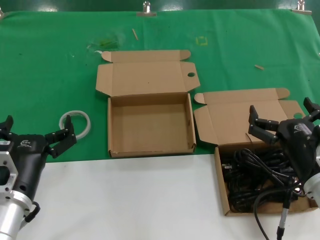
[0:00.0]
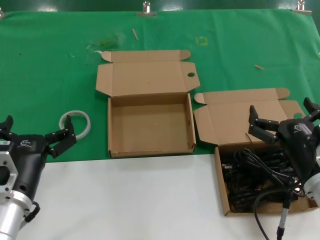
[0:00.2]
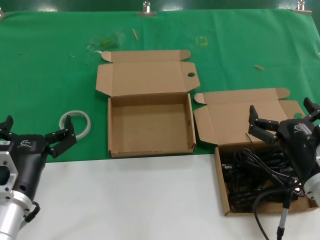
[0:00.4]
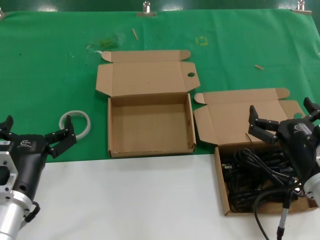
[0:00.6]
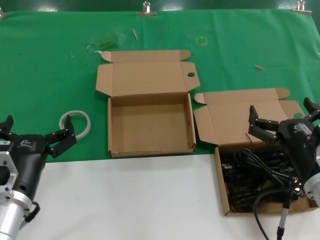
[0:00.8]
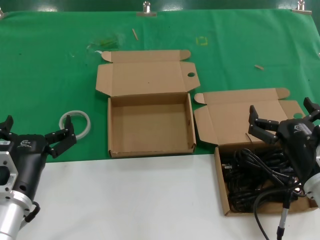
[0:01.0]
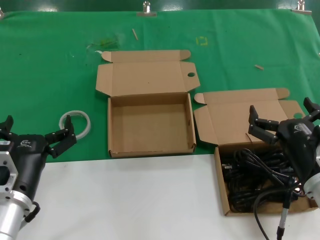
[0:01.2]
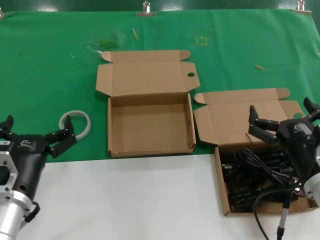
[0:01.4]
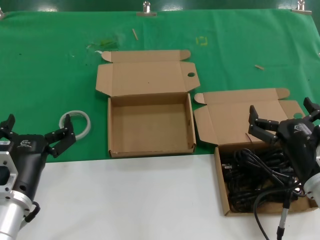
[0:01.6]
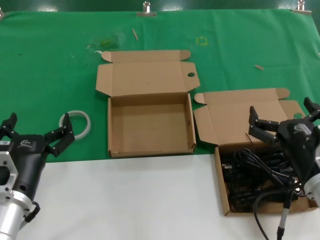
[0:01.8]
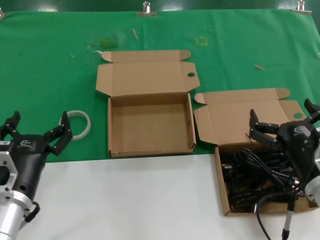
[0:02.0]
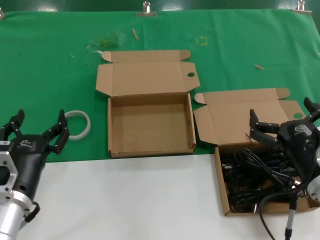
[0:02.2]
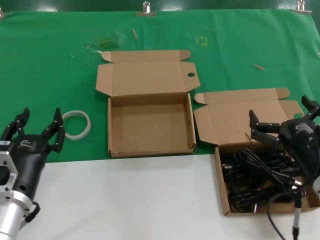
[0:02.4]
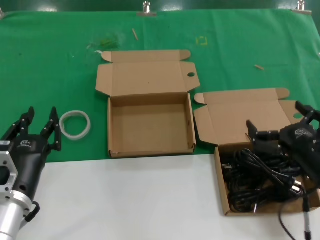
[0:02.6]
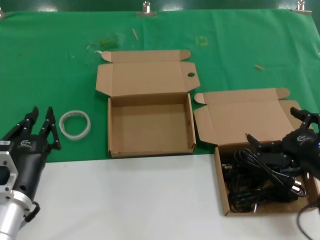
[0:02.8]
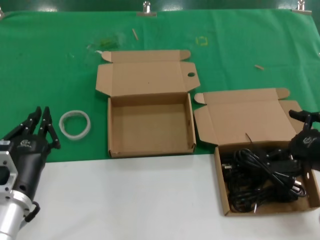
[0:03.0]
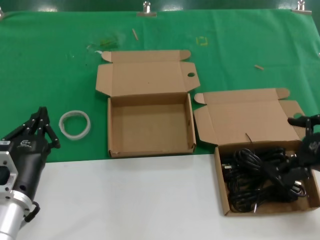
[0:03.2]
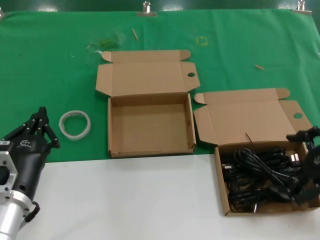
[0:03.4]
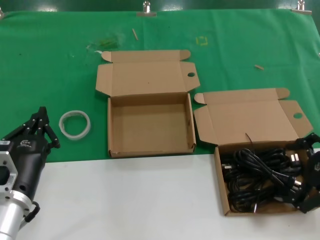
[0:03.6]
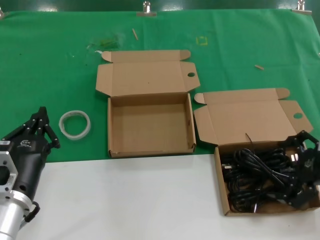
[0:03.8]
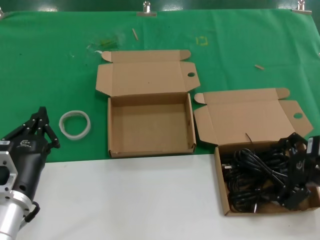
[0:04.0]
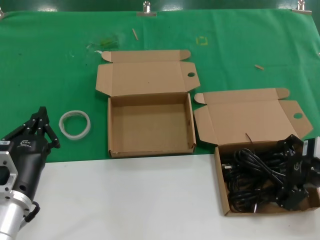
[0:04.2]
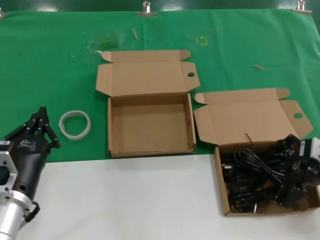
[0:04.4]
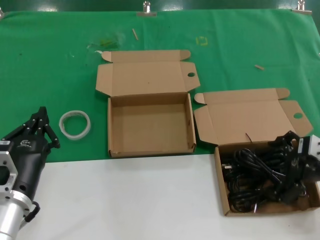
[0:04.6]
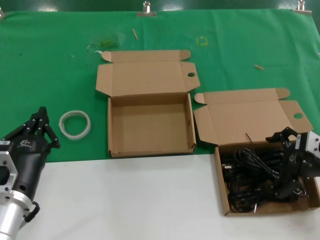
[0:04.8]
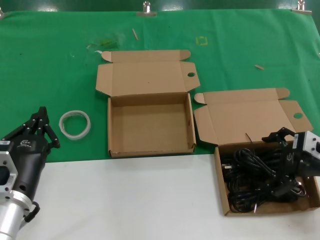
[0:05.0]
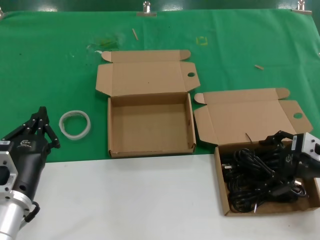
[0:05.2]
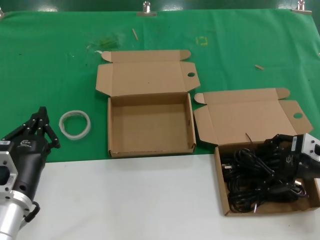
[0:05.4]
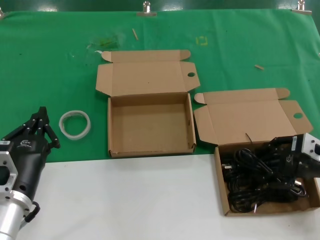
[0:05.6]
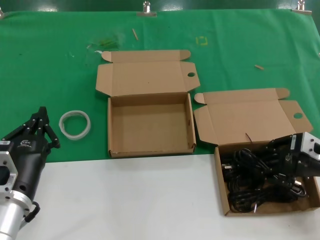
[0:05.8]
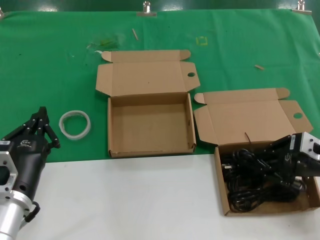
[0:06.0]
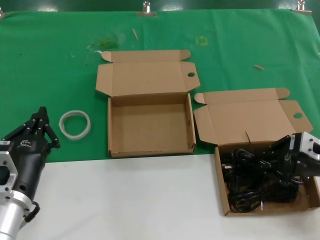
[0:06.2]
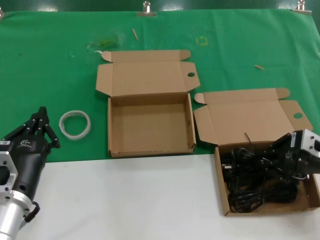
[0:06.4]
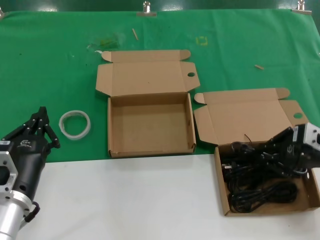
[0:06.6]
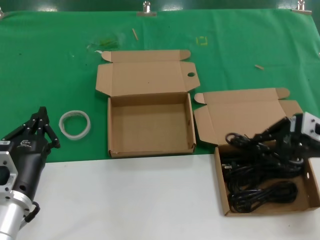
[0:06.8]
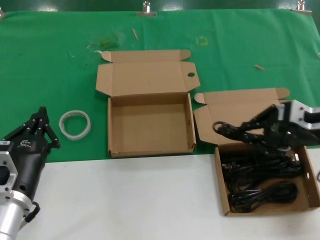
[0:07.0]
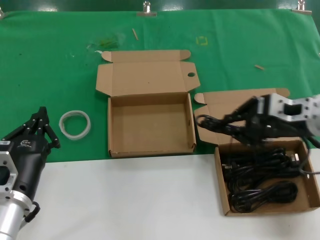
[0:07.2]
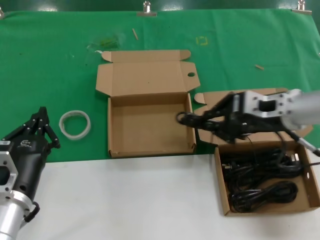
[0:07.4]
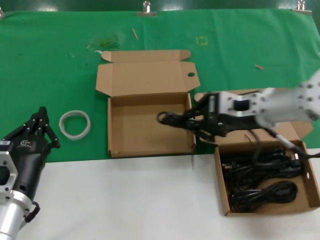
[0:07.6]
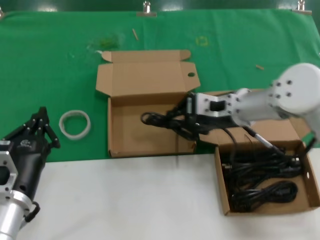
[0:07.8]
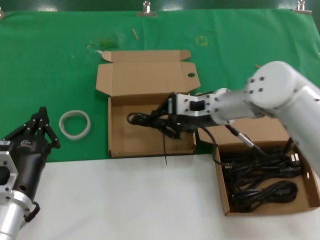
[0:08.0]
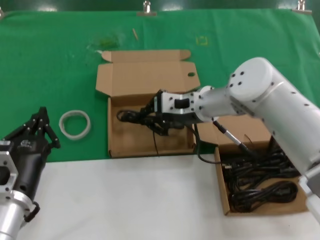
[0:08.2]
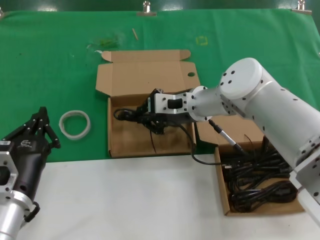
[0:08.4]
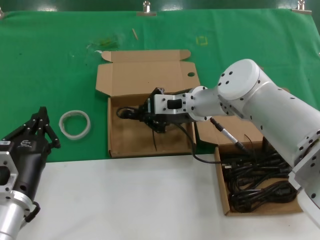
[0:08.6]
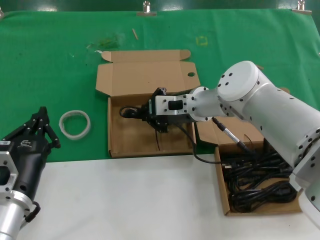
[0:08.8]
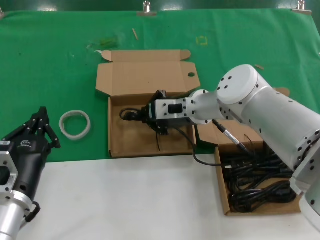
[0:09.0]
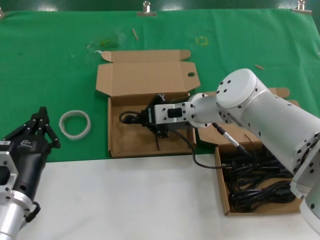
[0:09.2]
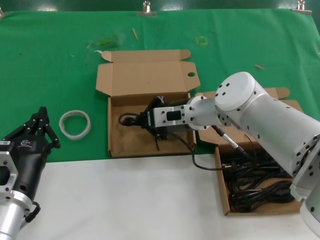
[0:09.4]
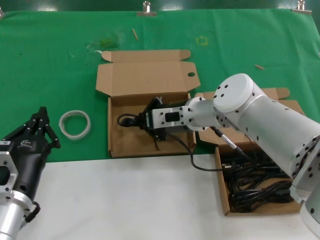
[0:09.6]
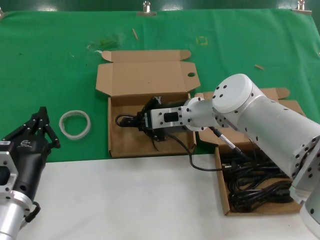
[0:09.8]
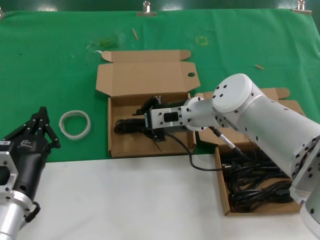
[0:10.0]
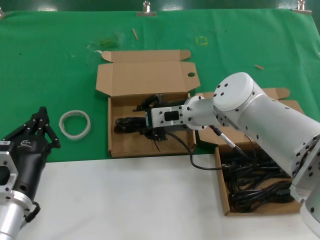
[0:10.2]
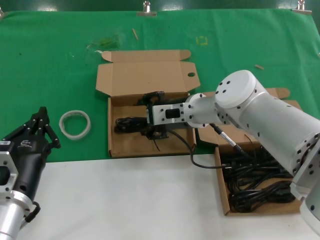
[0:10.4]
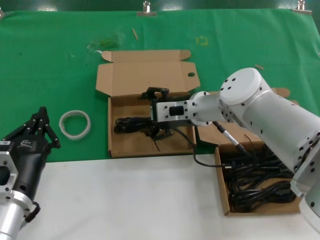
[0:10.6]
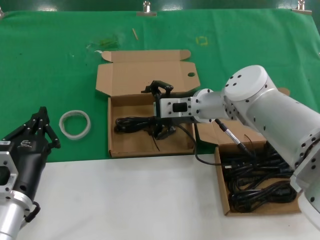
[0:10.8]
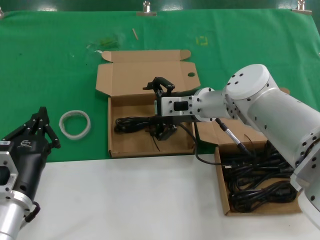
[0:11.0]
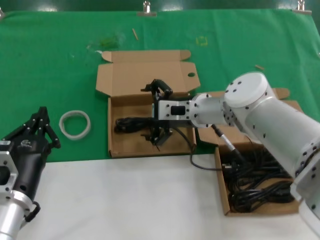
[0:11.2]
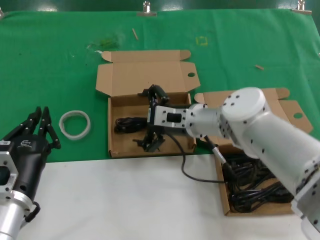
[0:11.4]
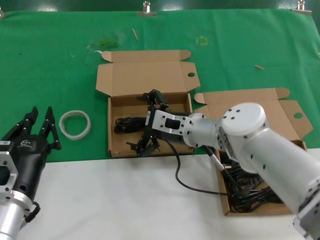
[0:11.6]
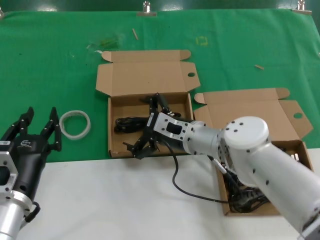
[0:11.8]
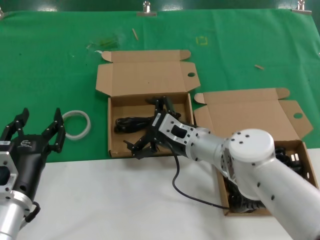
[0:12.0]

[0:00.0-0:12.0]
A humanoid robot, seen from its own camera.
Task of the whole recording: take the parts from the box containing them and put them into an empty box.
Step, 0.0 to 6.2 s: Grasp the data cable.
Step, 6.6 to 9.8 s: Place the data cable in the another box.
0.0 to 1.6 s: Both hands stay put.
1.6 to 3.0 s: The right hand travels to the right by some 10 cm.
3.0 to 4.4 s: The right hand travels forward by about 5 cm.
4.4 to 6.0 s: The hands make only small movements.
6.0 to 7.6 s: The right hand is displaced to the left, upward and forward by roughly 15 cm.
7.6 to 9.0 s: The right hand heads to the left, forward and downward, covering approximately 15 cm.
9.0 to 10.4 s: There are only small adjustments of the hands.
10.4 to 12.0 s: The right hand travels downward and backward by roughly 10 cm.

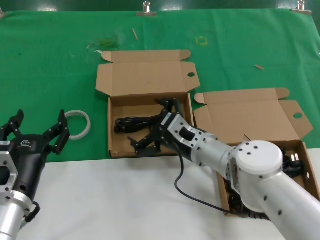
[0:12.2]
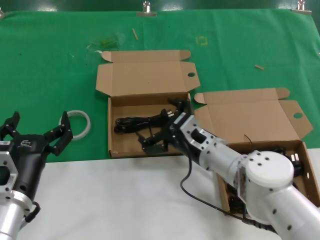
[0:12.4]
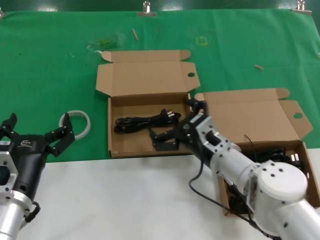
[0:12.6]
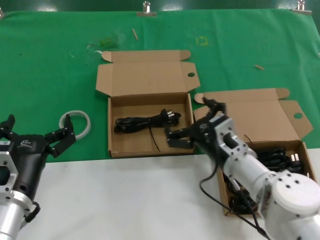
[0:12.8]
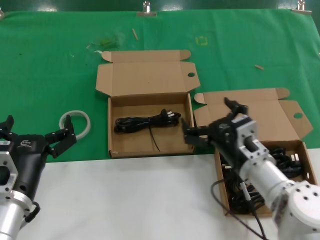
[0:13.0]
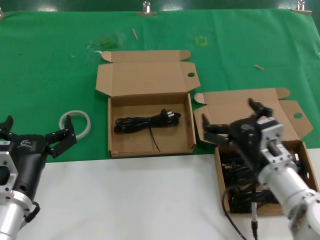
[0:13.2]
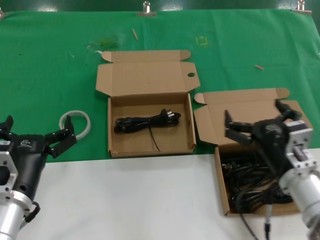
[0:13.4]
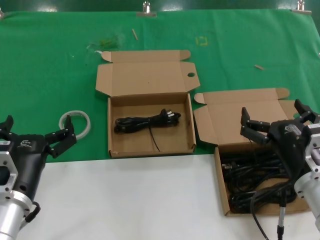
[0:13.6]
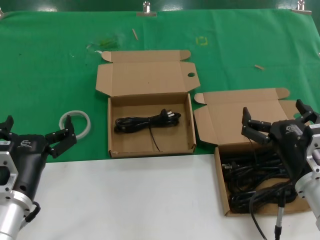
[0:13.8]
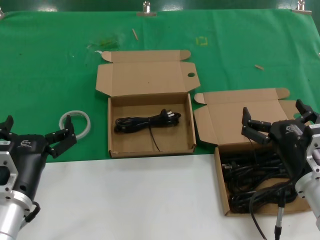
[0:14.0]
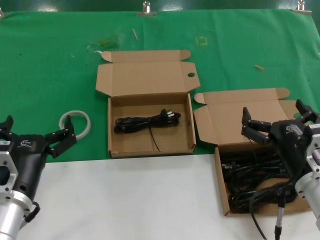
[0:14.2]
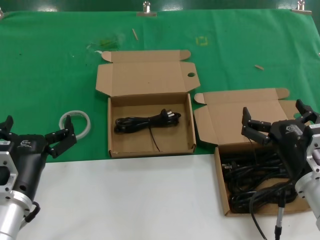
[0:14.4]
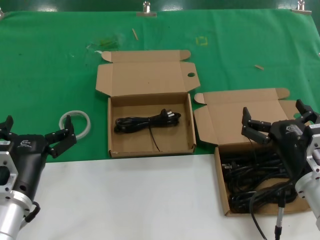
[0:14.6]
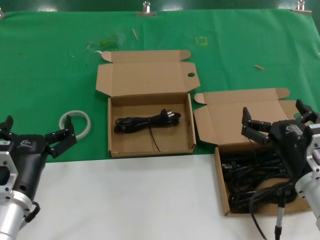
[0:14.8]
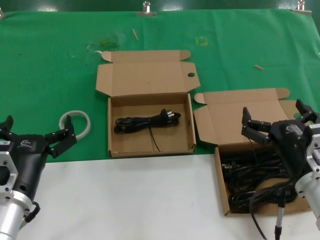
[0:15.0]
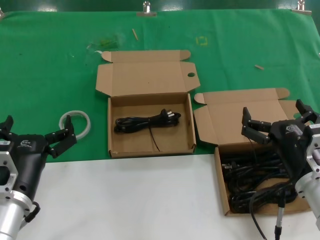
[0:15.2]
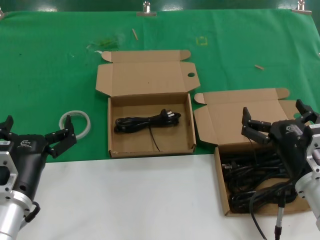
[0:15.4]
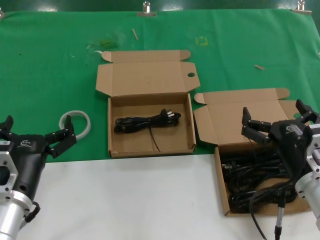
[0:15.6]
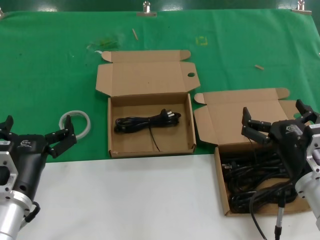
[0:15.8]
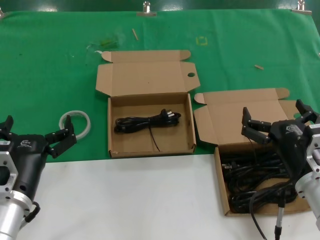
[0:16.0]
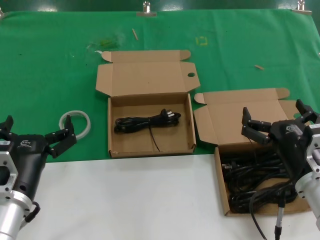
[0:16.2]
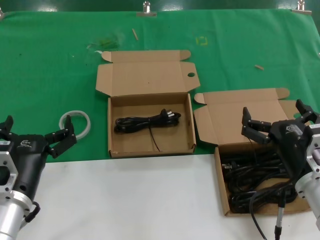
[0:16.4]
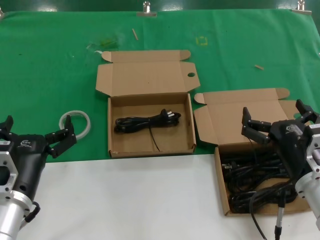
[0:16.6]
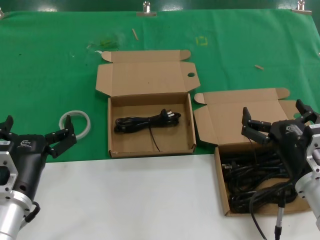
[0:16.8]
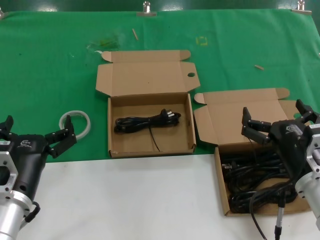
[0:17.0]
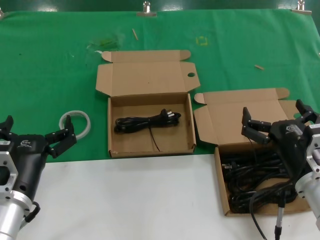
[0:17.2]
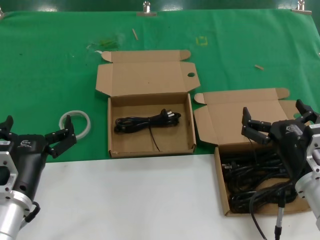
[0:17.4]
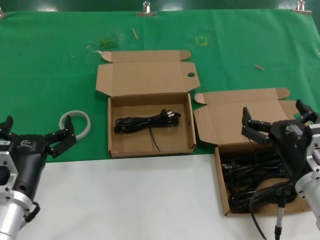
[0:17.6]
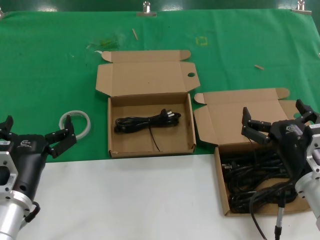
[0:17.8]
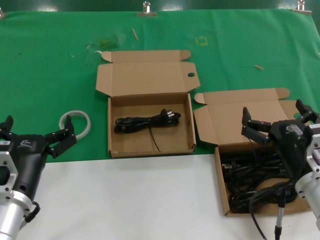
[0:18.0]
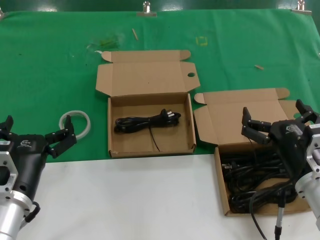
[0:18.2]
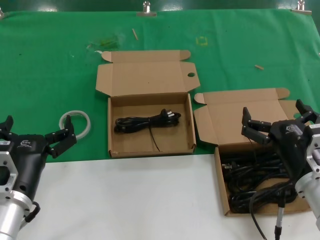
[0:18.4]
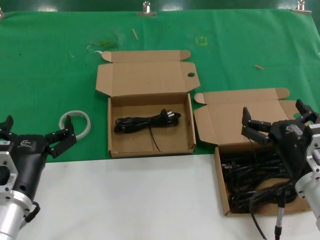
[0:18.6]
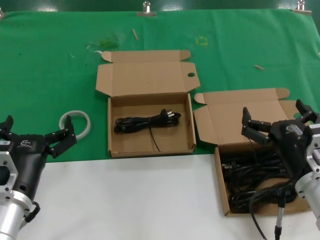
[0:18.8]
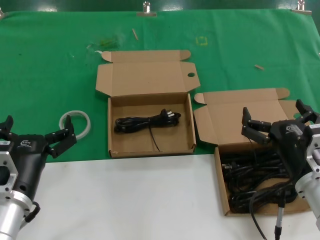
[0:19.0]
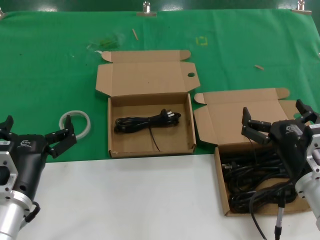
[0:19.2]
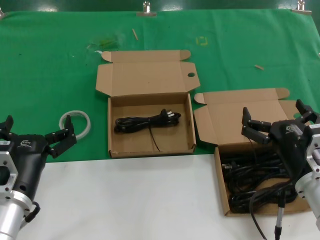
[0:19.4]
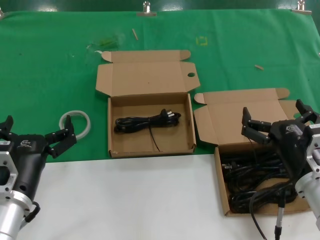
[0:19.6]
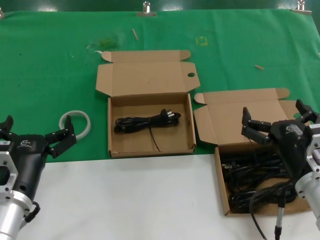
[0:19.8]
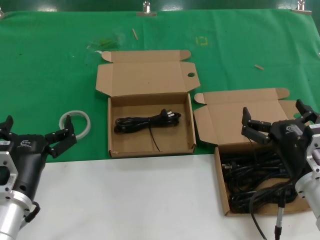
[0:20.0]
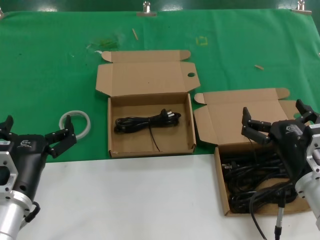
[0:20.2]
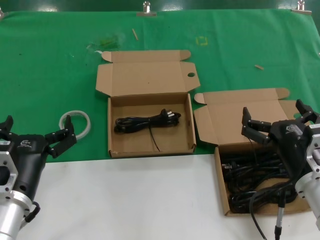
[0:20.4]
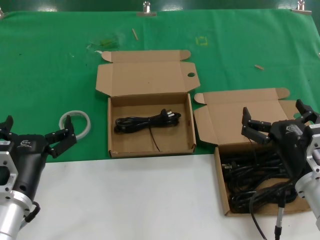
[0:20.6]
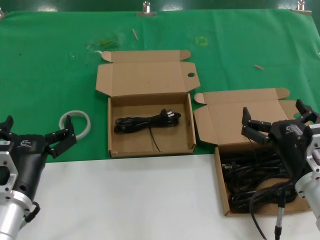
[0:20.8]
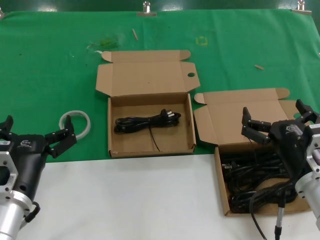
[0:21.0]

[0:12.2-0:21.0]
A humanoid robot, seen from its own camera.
Task of the whole recording: take the parts from the box containing them and put them into an empty box.
12.2 to 13.6 s: The right hand heads backward and to the right, covering about 20 cm.
13.6 to 21.0 s: Neither hand changes place.

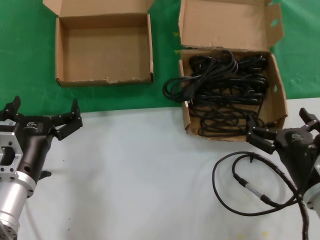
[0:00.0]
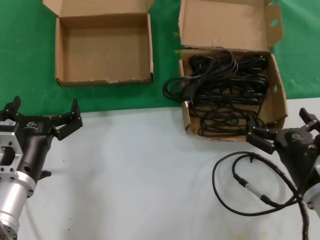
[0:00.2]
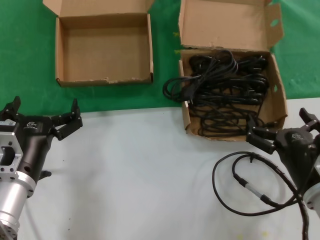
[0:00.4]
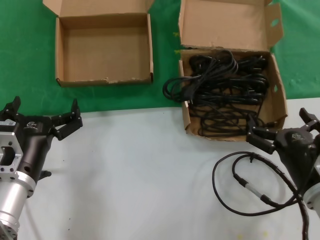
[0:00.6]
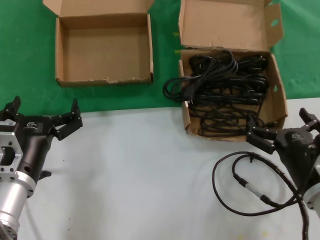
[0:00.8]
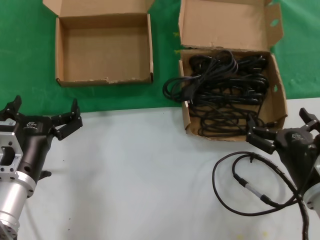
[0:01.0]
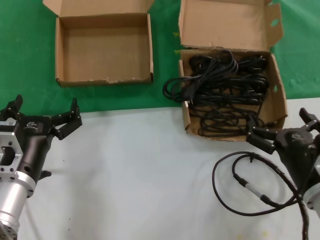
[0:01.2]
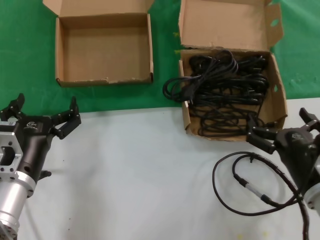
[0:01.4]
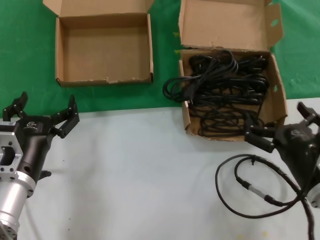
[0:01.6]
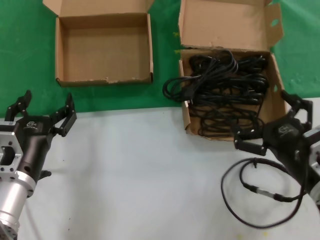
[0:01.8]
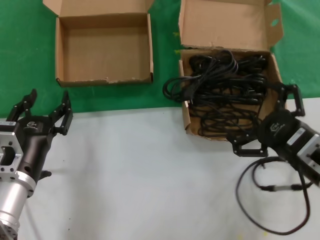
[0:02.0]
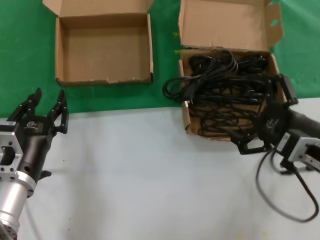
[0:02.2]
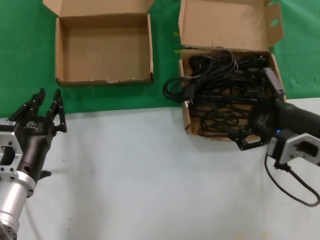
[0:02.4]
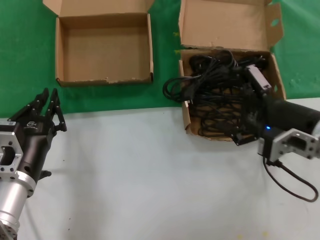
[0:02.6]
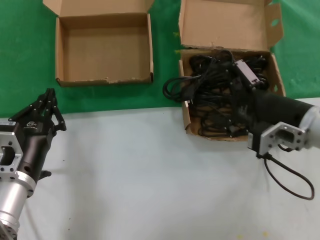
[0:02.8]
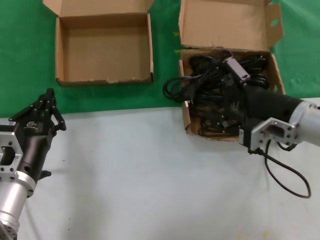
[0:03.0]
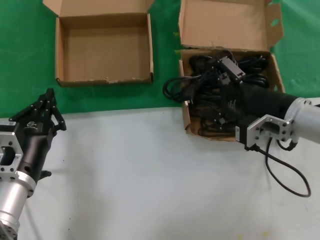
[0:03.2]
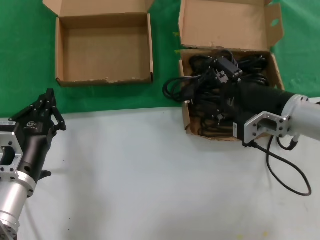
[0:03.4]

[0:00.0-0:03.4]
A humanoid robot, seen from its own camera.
Task of the whole recording: take the parts from the box containing them and put them into an empty box.
0.0 to 1.6 s: Both hands stay about where they are.
1.6 to 3.4 s: The right hand is displaced forward and upward by approximately 15 cm.
